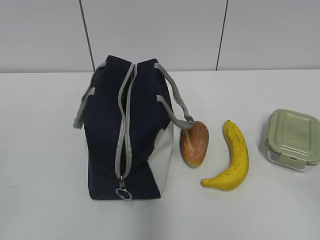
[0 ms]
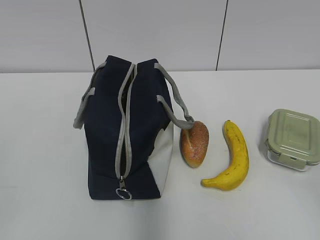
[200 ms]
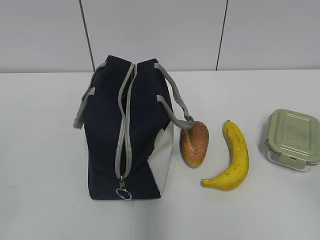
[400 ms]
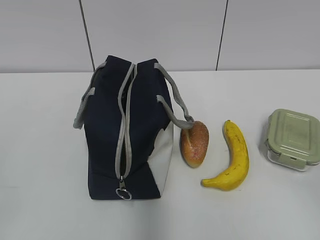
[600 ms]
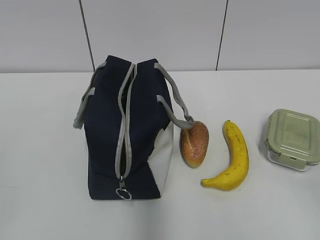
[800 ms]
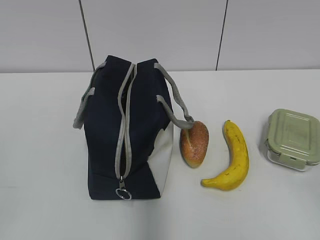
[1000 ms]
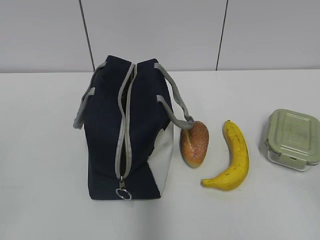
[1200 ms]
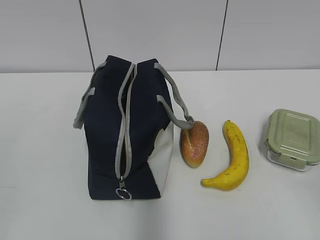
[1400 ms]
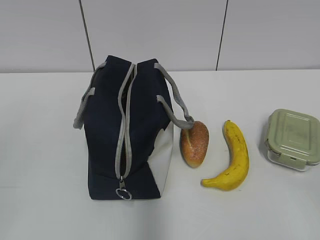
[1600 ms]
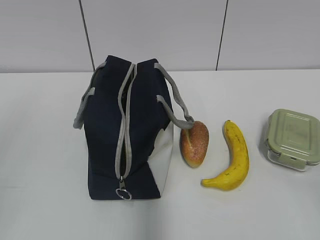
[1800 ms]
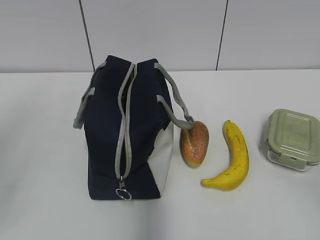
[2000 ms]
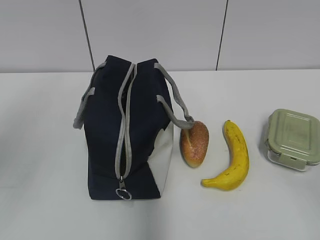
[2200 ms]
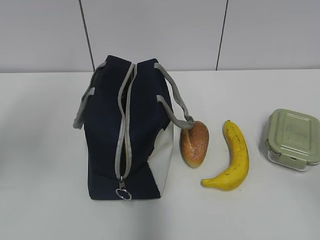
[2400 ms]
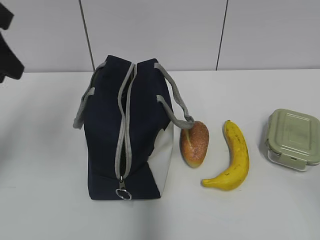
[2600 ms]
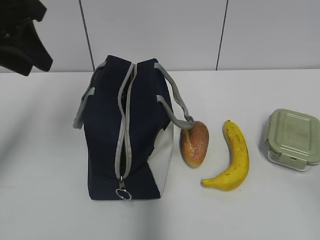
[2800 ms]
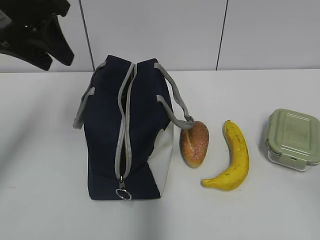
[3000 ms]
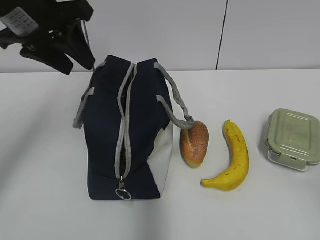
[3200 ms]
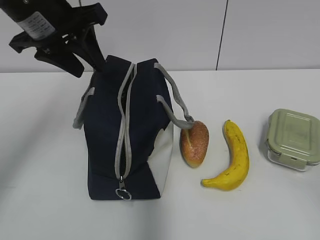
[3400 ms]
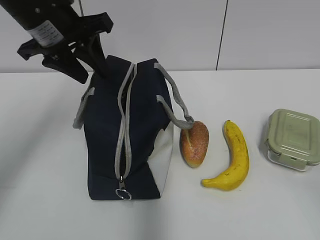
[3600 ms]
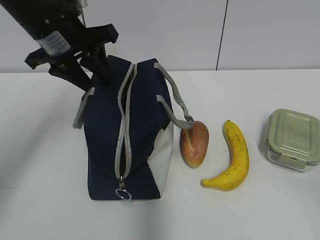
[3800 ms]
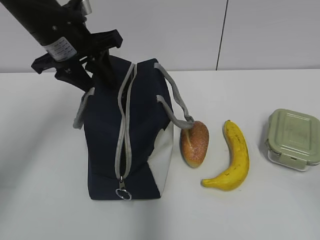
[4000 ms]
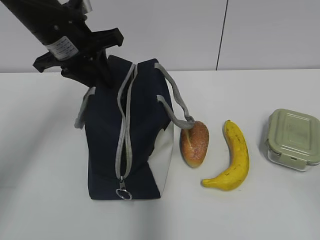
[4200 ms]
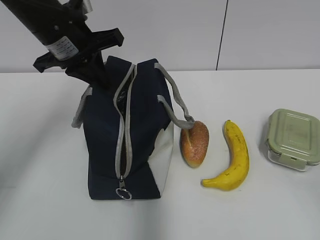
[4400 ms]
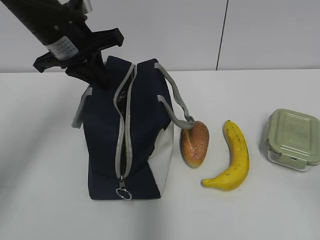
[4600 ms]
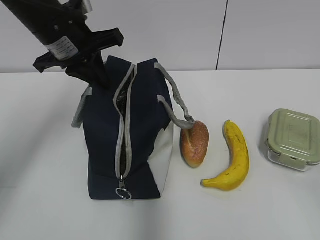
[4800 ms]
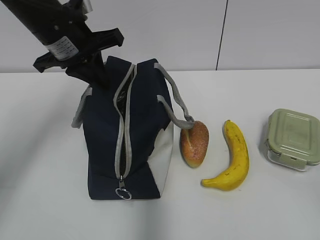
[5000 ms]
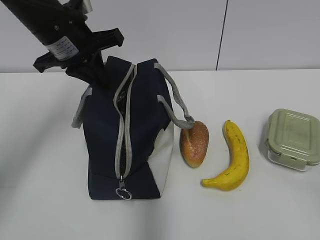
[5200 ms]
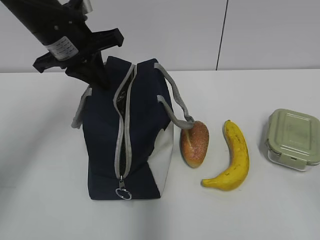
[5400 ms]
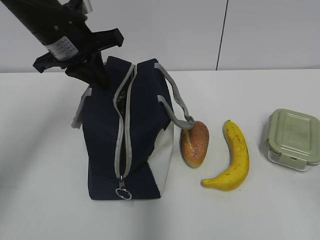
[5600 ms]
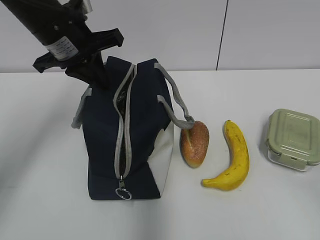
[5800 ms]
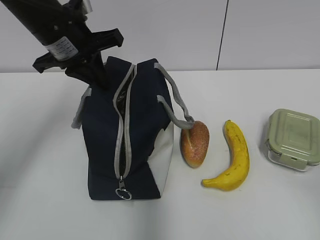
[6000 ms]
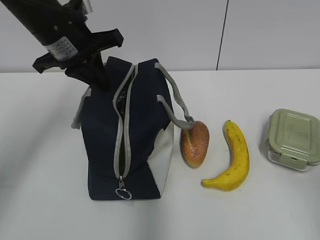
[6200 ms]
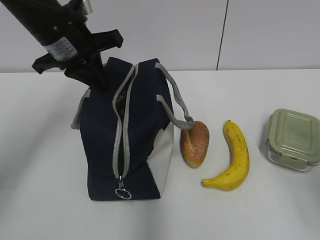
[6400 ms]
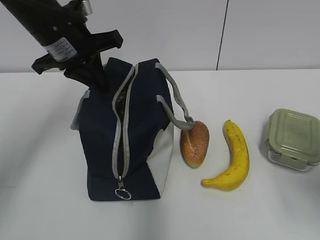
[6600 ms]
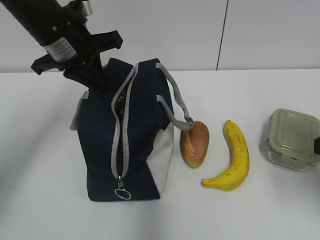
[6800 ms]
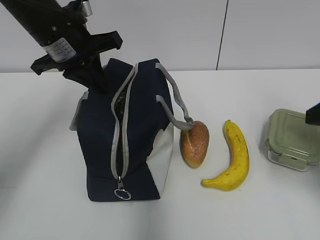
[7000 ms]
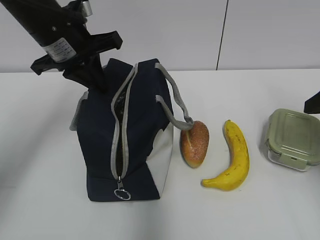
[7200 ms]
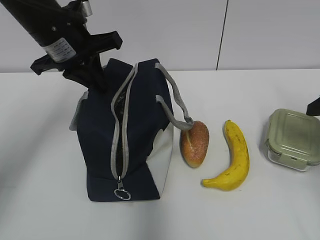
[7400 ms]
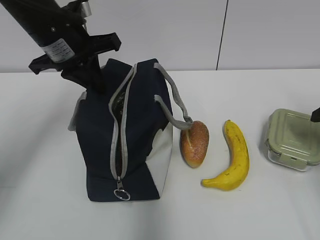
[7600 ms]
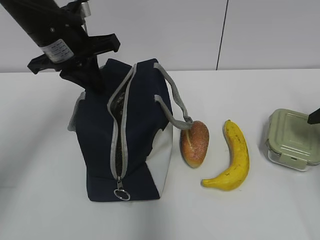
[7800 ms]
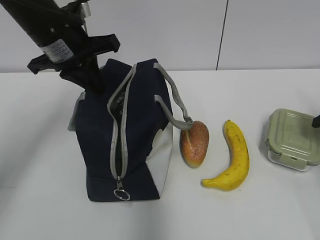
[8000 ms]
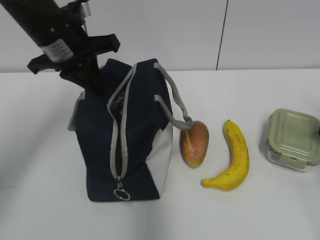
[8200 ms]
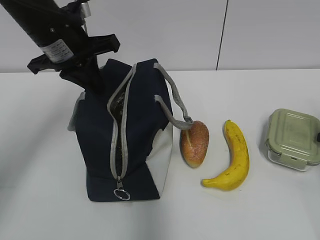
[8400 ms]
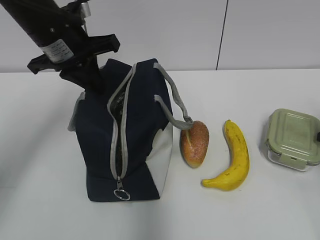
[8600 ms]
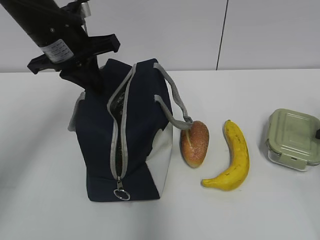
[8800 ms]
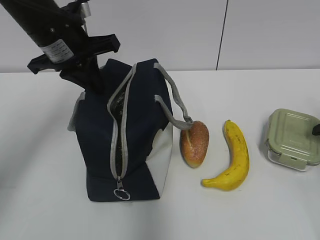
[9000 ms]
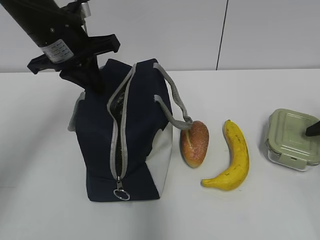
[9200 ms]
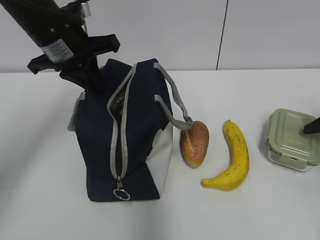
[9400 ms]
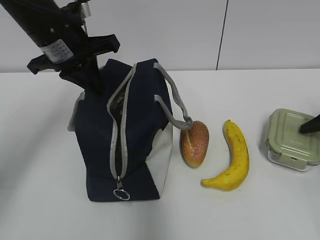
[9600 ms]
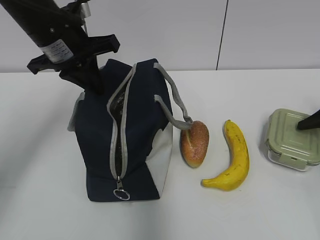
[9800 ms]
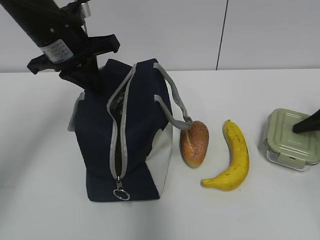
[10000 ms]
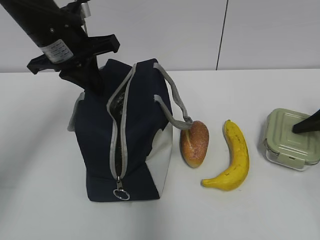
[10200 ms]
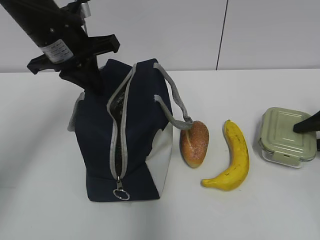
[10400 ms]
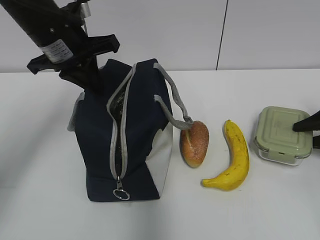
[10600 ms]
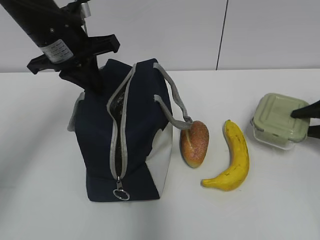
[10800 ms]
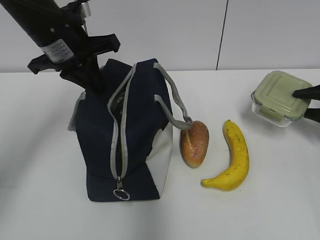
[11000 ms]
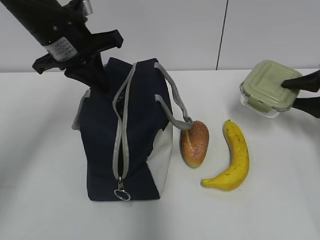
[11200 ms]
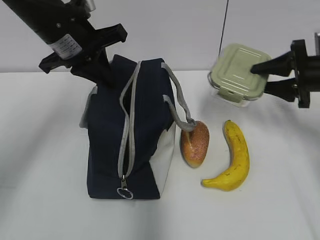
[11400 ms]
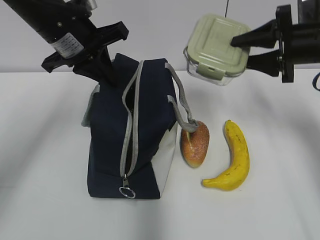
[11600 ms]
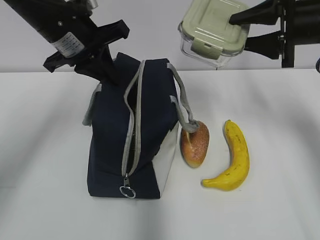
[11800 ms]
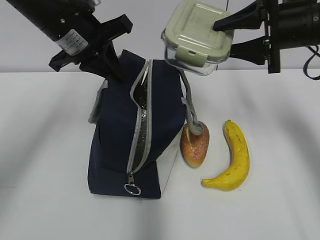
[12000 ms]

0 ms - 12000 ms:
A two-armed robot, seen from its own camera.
1600 ms - 3000 ms: The left gripper moves forward, about 30 cm.
3000 ms - 4400 ms: The left gripper goes approximately 10 cm downward and forward, and closes up.
4400 ms - 6000 ms: The grippers stay close to where they were, moving slightly.
6000 ms - 7600 ms: The right gripper goes approximately 25 cm forward.
7600 ms - 9000 ms: The right gripper travels downward and to the right by some 10 cm.
9000 ms - 10400 ms: The right gripper shifts by about 5 cm.
10400 ms - 12000 ms: The right gripper goes roughly 25 cm to the left and upward.

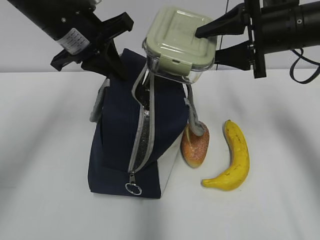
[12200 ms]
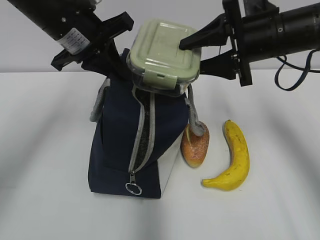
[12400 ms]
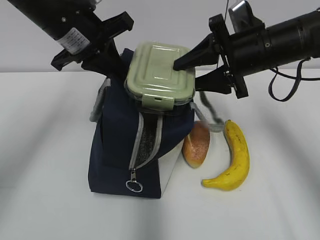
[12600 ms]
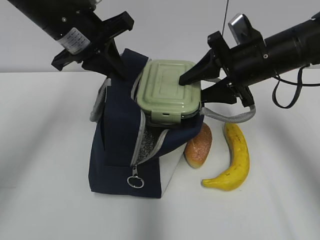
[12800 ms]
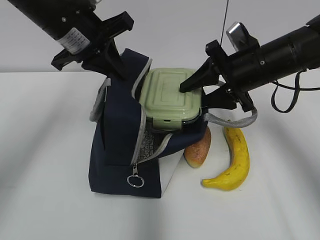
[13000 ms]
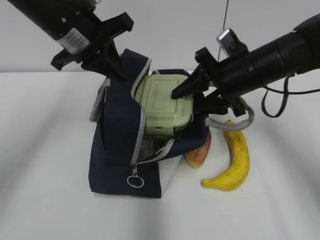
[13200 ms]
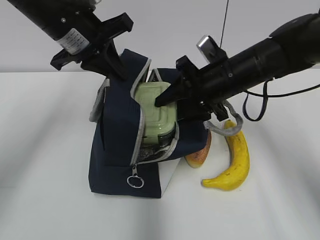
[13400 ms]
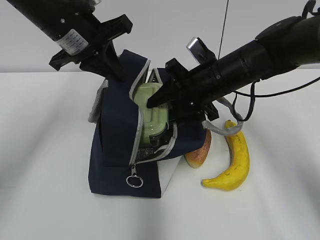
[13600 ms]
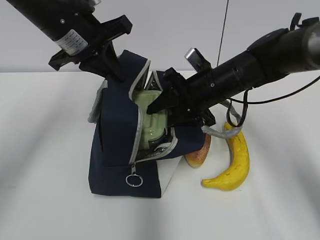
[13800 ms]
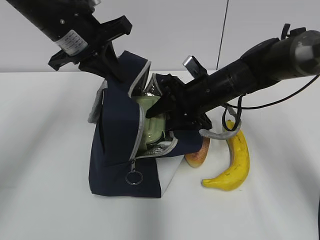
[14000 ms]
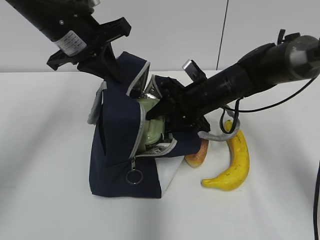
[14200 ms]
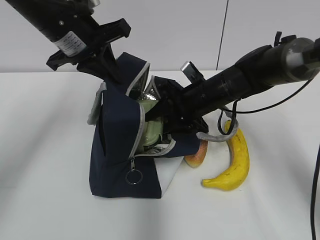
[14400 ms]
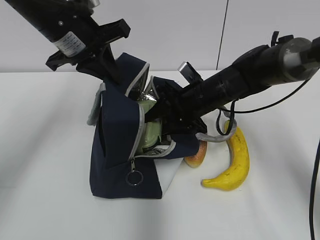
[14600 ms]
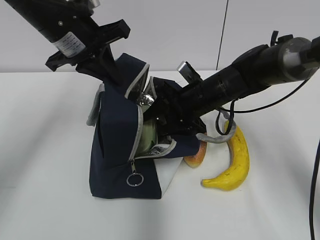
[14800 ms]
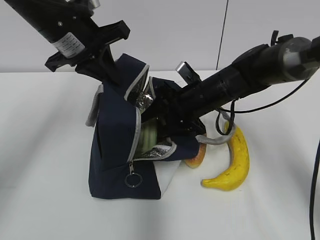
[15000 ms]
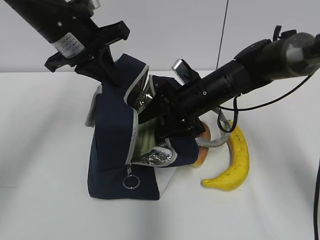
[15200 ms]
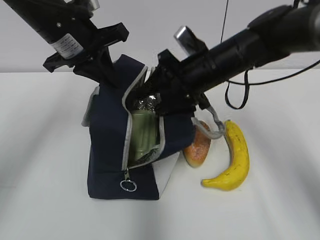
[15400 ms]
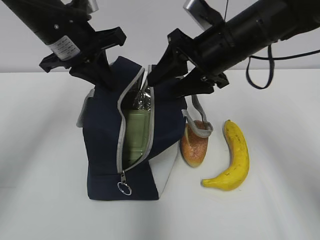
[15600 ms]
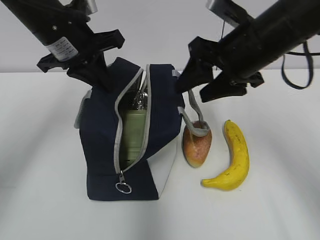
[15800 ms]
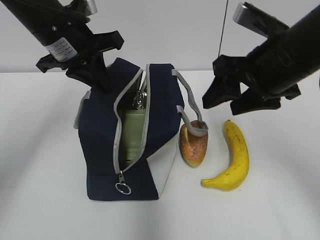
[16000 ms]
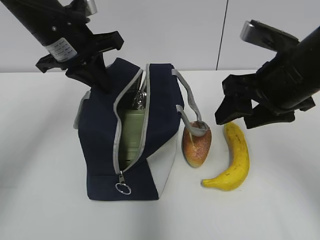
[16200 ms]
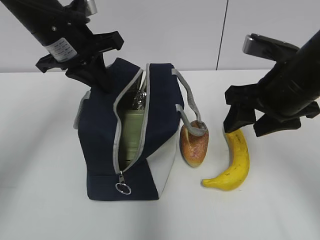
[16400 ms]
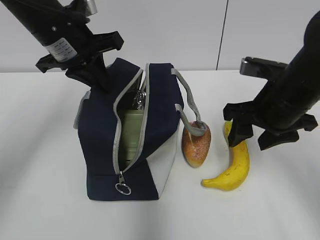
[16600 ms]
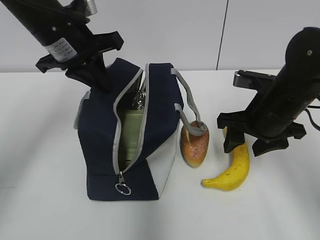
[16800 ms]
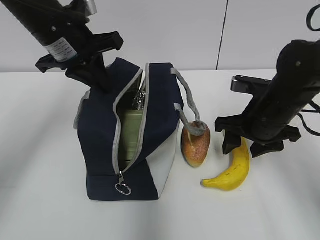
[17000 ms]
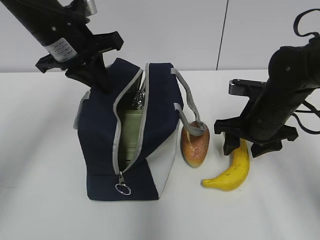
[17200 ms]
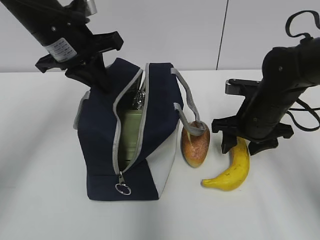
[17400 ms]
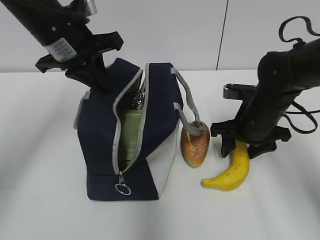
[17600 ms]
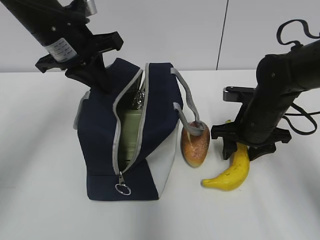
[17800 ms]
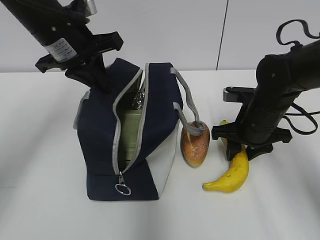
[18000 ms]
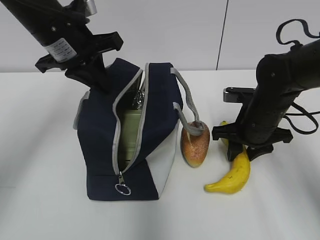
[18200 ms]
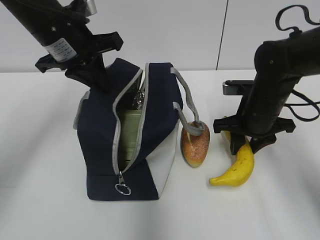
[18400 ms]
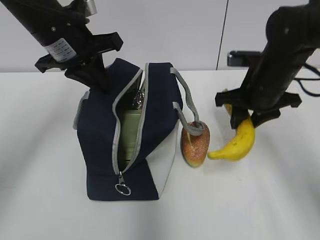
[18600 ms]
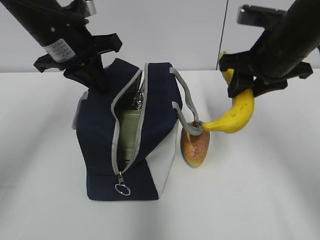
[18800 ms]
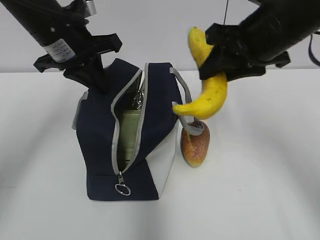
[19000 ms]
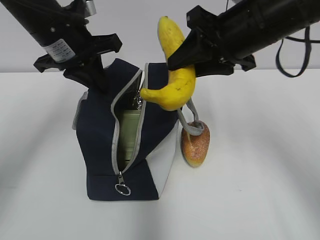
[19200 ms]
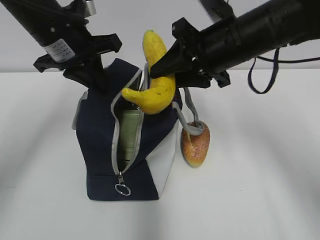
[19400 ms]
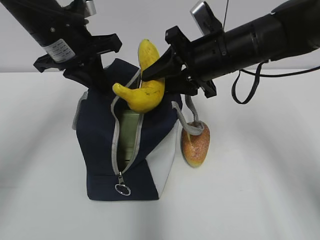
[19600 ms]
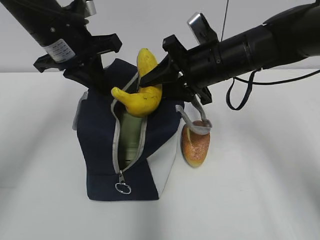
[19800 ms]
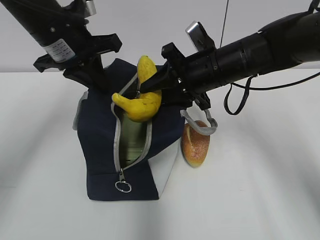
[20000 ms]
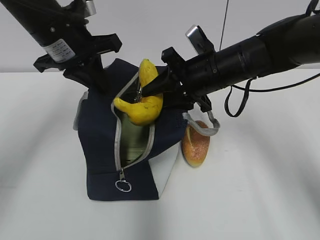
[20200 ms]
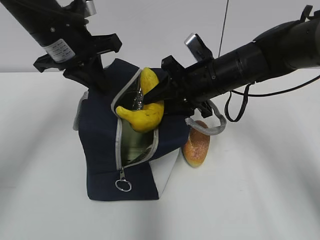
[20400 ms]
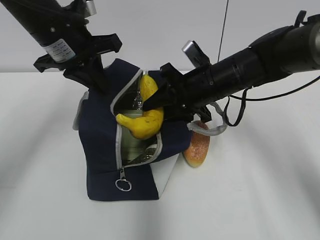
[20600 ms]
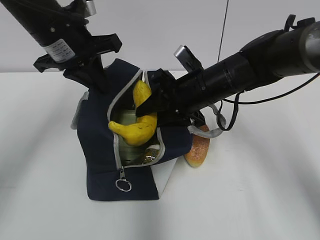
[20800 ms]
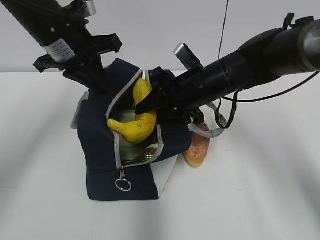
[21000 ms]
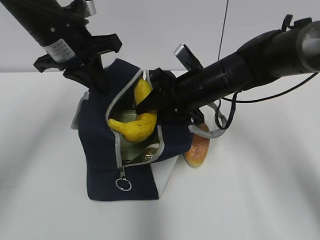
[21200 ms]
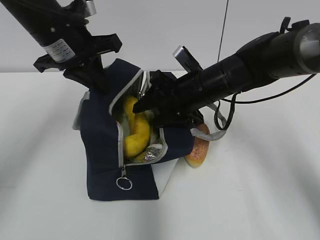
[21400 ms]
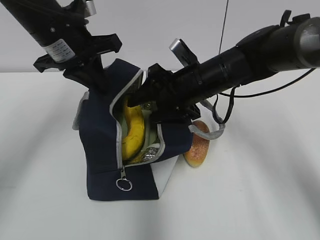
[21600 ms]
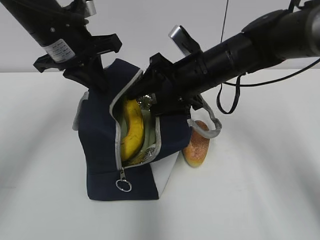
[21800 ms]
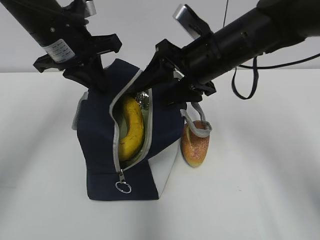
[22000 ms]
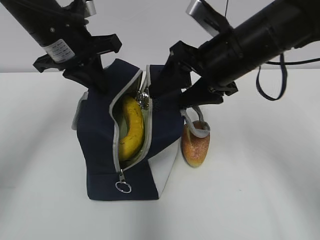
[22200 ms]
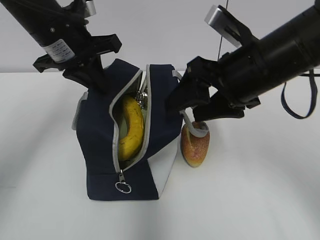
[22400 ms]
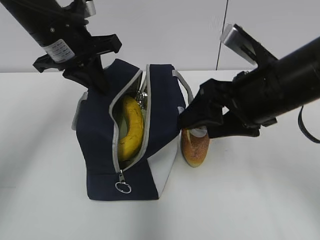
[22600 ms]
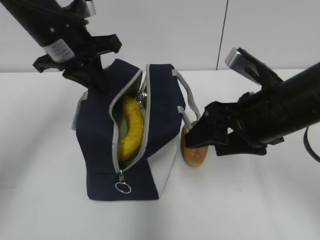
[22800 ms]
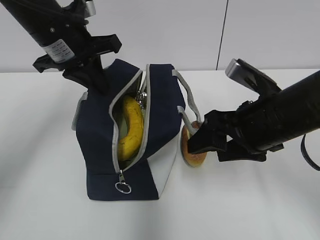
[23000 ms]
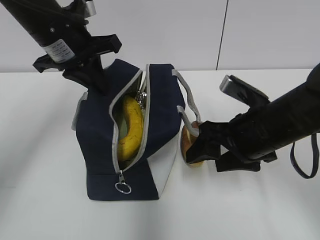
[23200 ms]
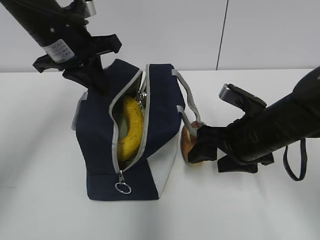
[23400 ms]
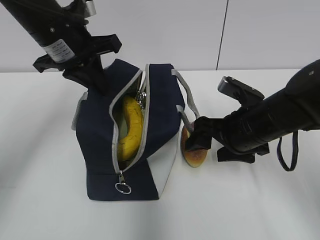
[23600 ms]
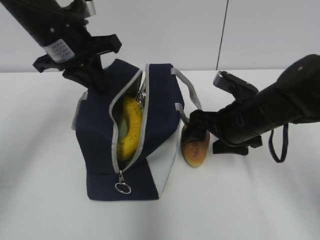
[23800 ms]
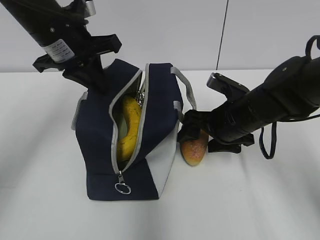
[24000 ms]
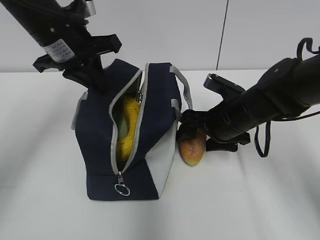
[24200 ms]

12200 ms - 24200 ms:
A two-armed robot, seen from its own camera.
12200 ms - 13800 ms: The right gripper shifts roughly 15 cm downward and to the left.
13800 ms - 15200 ms: The grippers make only small movements.
15200 ms - 16600 ms: The right gripper heads backward, to the right and upward, covering roughly 15 cm.
16600 ms - 18200 ms: The right gripper is displaced downward and forward by roughly 10 cm.
18200 ms - 19800 ms: The right gripper heads upward and to the left, covering approximately 10 cm.
19800 ms - 21200 ms: The right gripper ends up roughly 5 cm from where it was.
21200 ms - 22600 ms: The right gripper moves backward, upward and to the right, about 15 cm, and opens.
22600 ms - 24200 ms: The right gripper heads downward and forward, covering approximately 15 cm.
